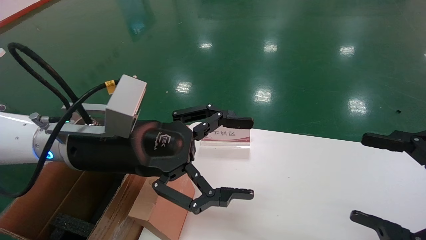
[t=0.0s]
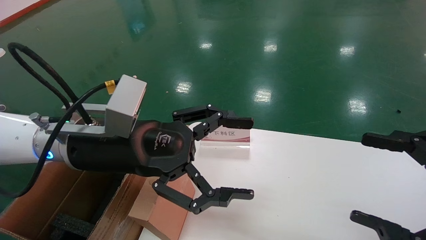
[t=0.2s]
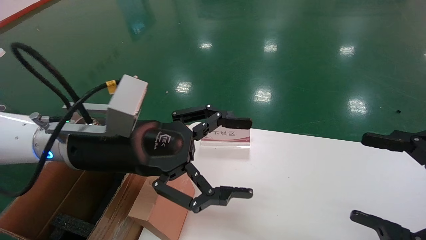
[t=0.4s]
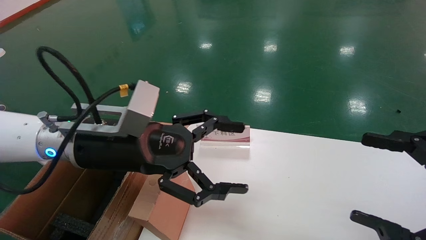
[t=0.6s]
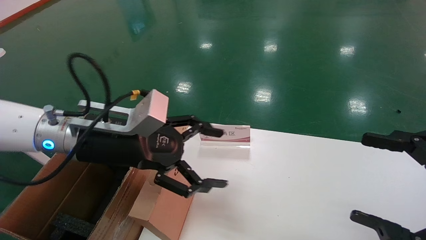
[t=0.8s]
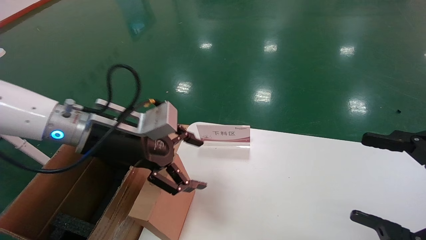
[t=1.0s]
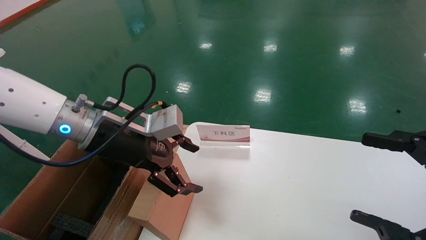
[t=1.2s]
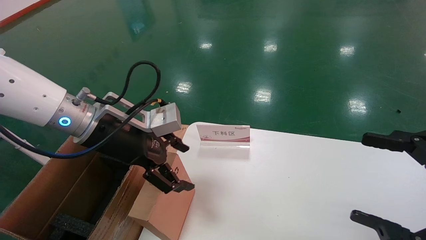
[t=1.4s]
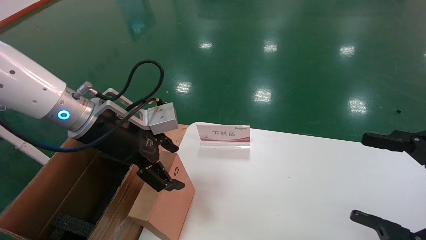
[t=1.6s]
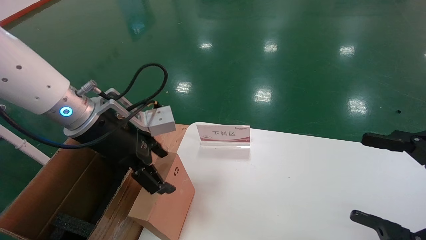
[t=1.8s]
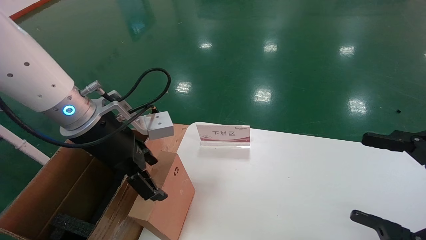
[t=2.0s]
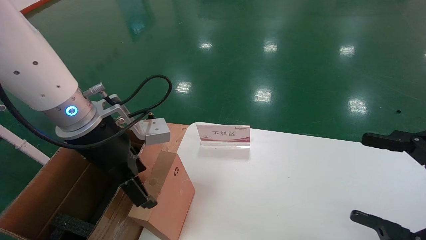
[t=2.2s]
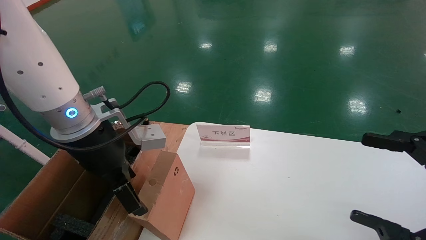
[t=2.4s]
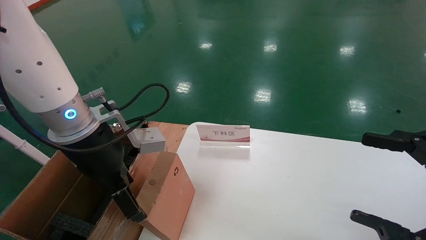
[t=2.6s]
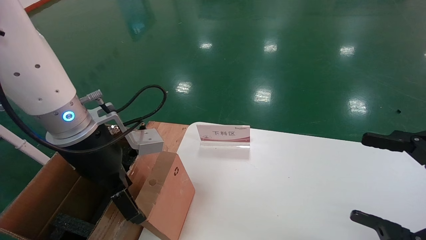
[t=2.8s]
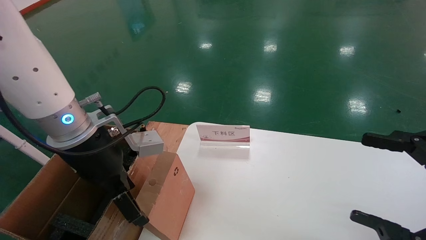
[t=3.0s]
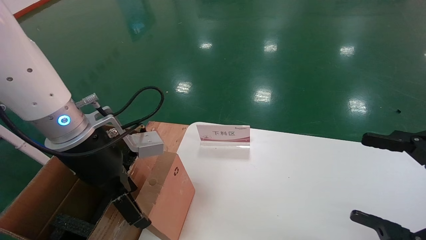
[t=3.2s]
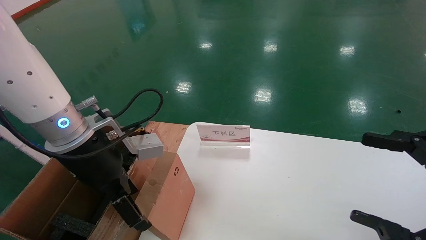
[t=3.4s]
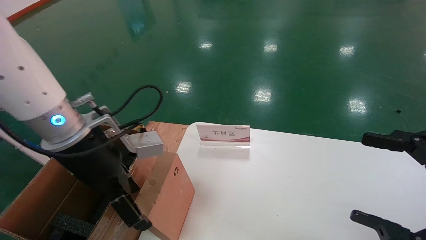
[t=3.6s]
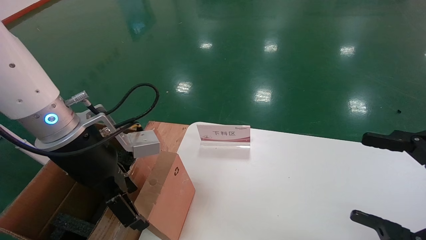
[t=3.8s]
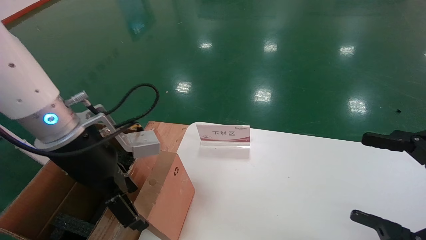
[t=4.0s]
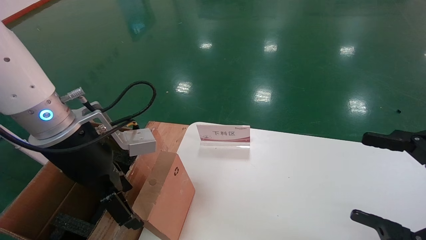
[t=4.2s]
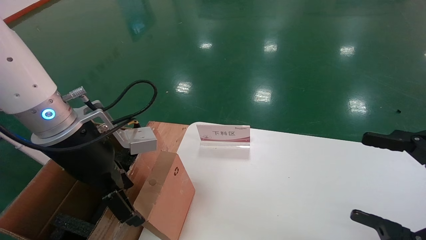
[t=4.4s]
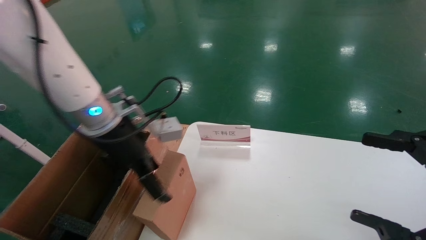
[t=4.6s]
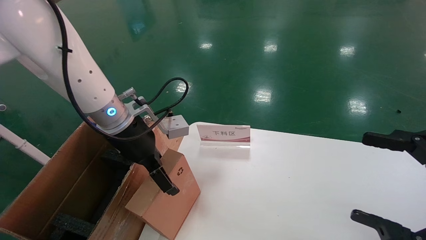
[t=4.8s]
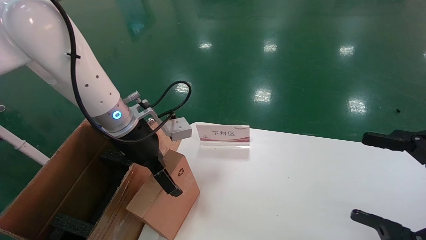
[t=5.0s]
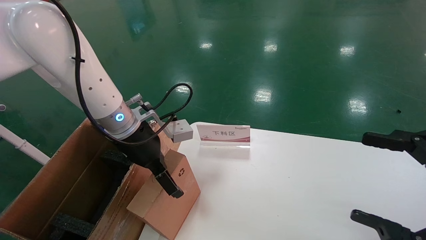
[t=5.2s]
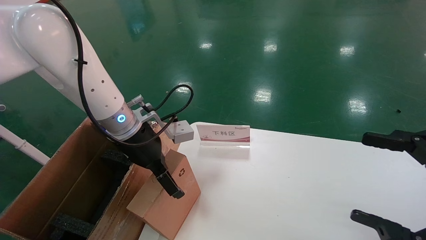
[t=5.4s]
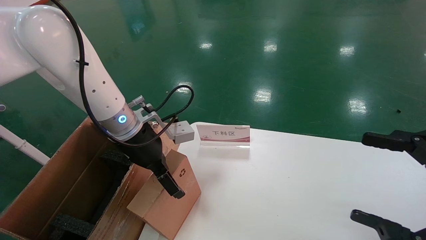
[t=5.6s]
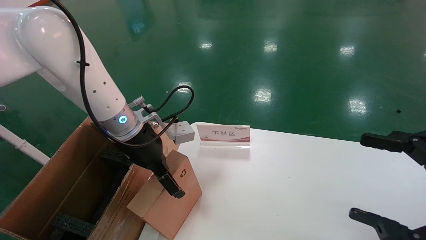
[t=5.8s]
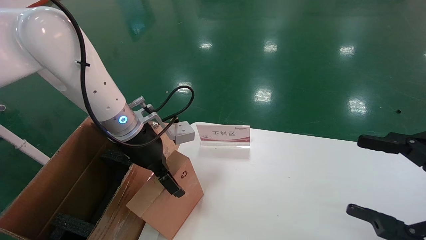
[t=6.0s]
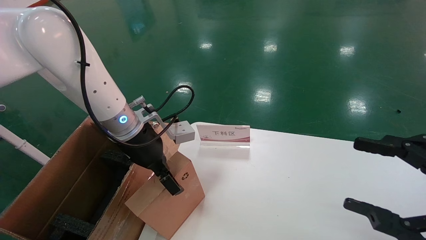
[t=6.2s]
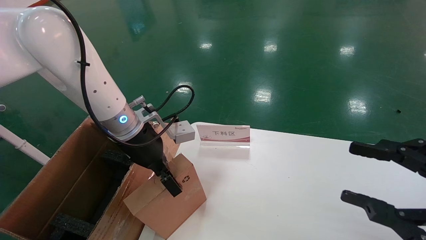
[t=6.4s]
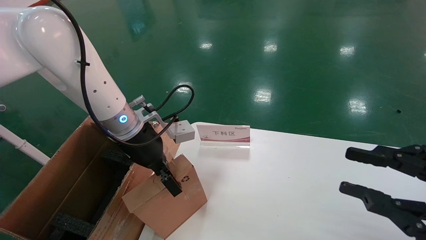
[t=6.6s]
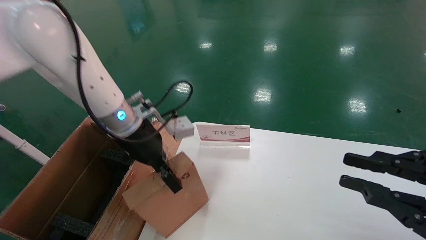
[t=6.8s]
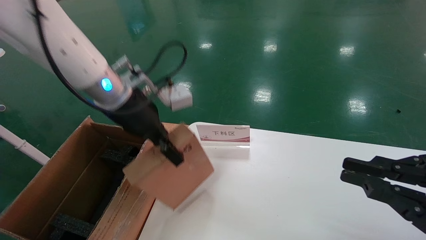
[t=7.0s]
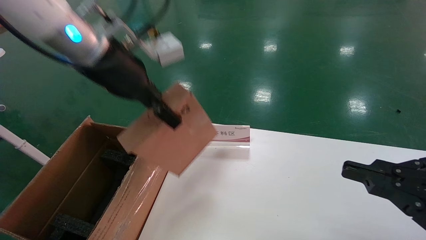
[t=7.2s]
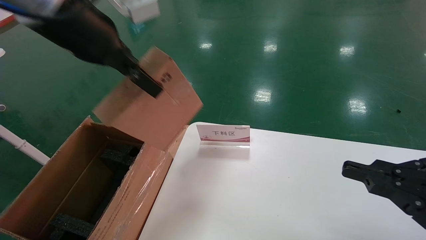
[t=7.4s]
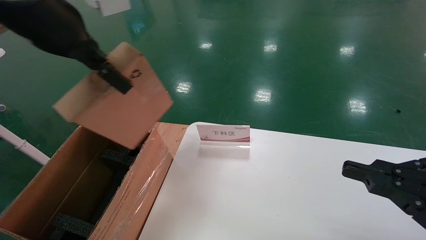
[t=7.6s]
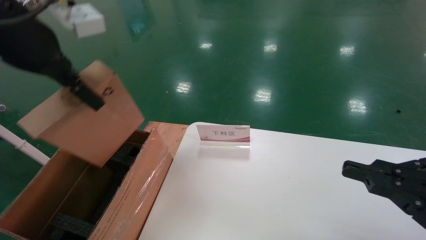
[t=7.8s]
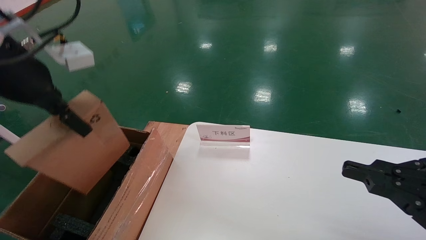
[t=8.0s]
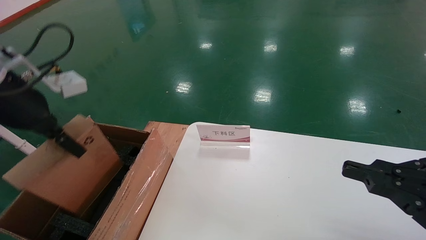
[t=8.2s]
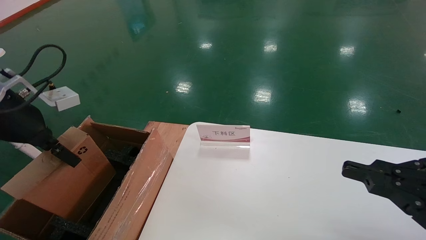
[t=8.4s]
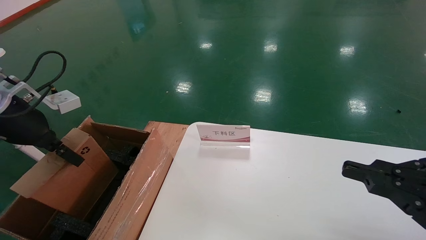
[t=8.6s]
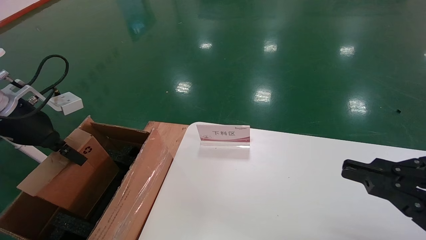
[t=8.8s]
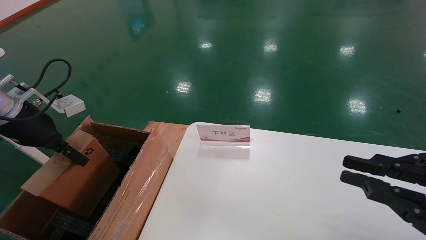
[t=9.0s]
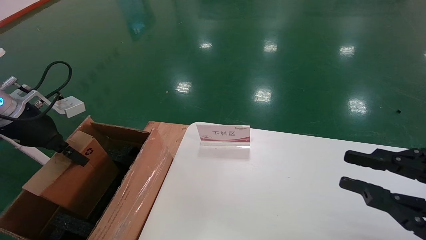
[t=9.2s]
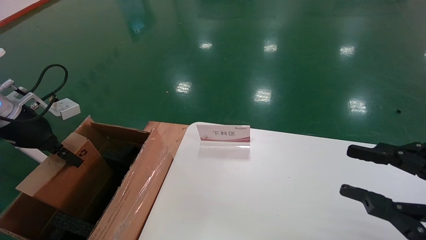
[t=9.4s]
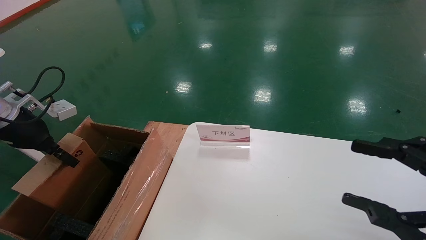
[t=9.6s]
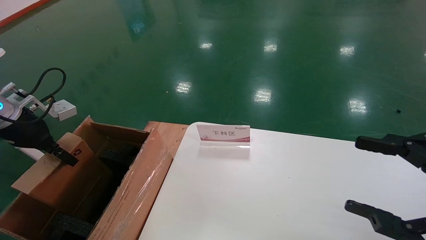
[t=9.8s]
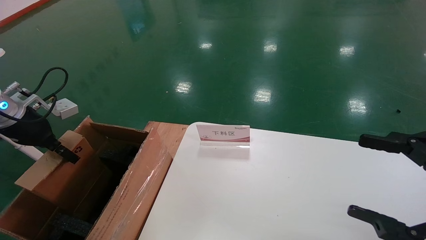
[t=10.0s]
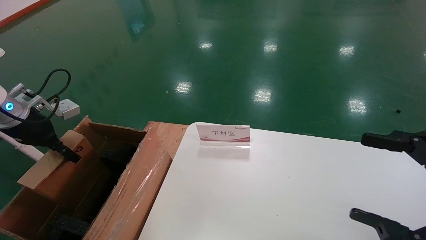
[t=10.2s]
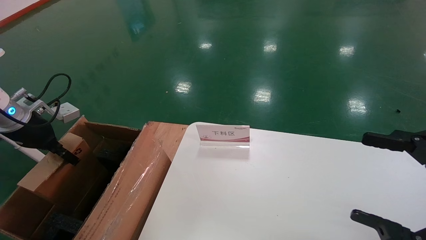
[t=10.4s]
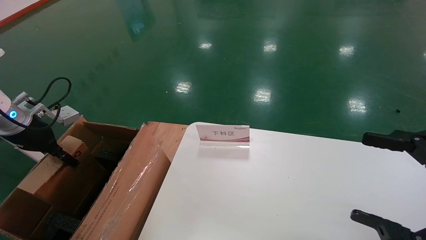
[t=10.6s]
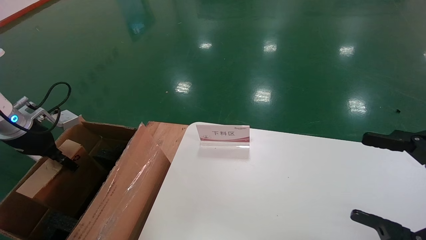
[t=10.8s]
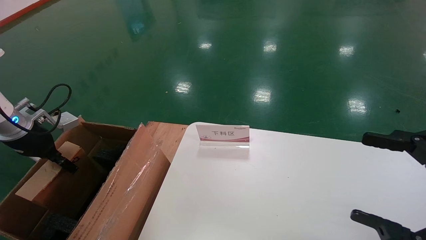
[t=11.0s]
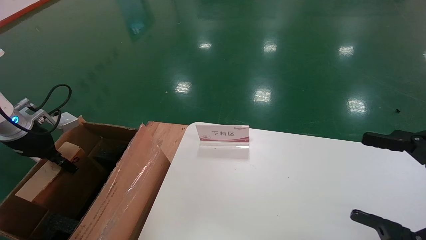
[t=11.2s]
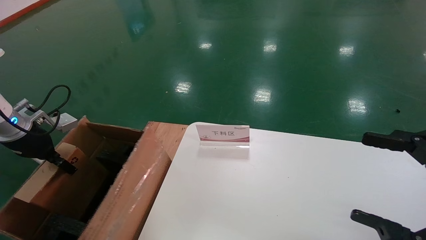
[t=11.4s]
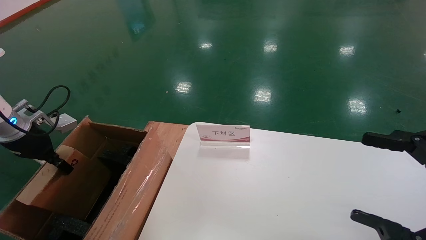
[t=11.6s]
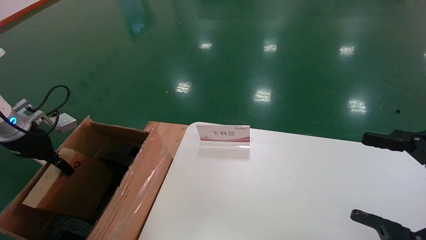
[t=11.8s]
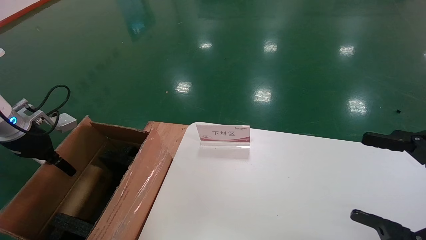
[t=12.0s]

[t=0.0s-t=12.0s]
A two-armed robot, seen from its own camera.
Task of the whole recording: pick up the small cardboard box and load it into the large cardboard box.
Step, t=0.8s to t=7.0s: Pick up the mouse and power cord box.
t=0.0s to t=1.6s: The left gripper shifts by approximately 5 cm.
t=3.0s to t=4.4s: There are only small adjustments of the grippers.
t=4.4s to t=6.0s: The left gripper heads forward, covering some 5 cm.
t=6.0s to t=7.6s: The left gripper travels upward and backward by approximately 25 cm, and closes up; the right gripper closes up.
t=7.6s to t=9.0s: The left gripper shifts approximately 25 cm to the left and downward.
t=9.0s to t=10.4s: The left gripper goes approximately 5 cm to the left; the right gripper opens its fingers.
t=10.4s to t=12.0s: The left gripper opens.

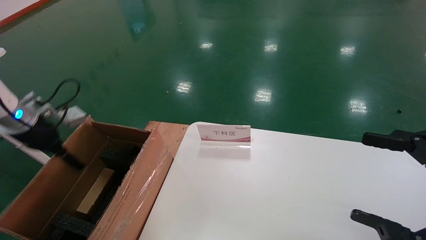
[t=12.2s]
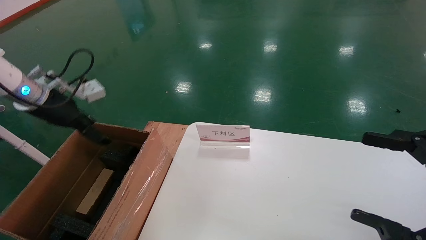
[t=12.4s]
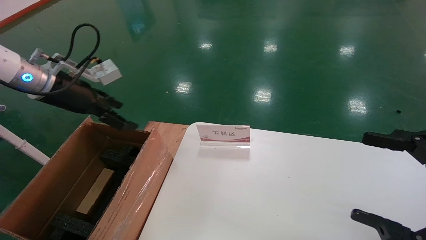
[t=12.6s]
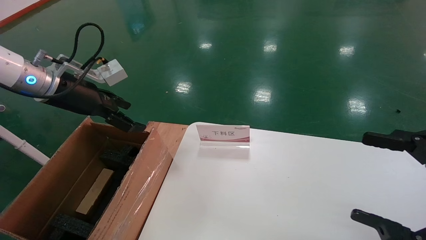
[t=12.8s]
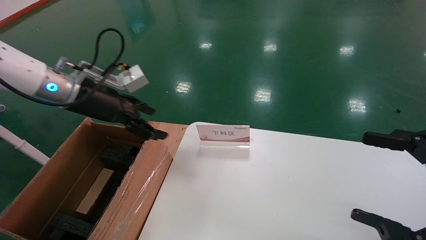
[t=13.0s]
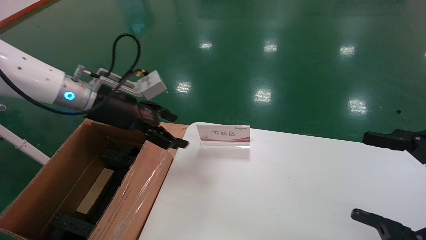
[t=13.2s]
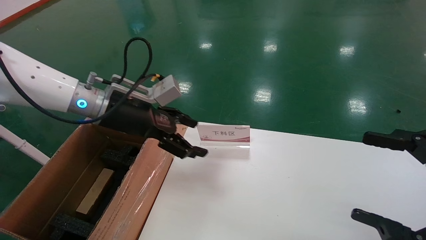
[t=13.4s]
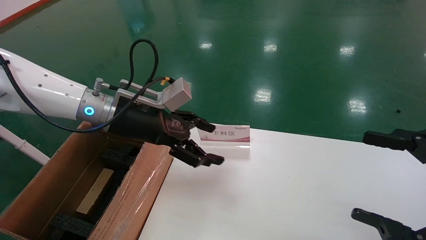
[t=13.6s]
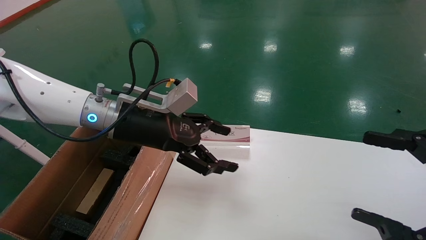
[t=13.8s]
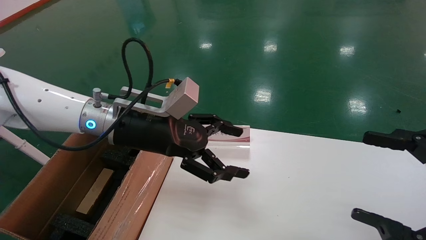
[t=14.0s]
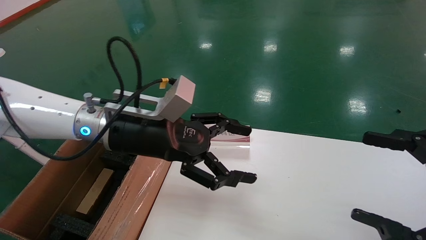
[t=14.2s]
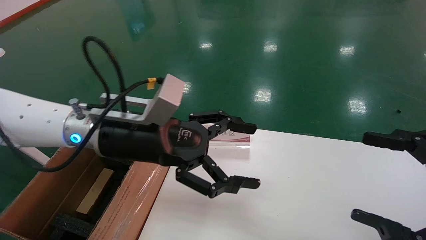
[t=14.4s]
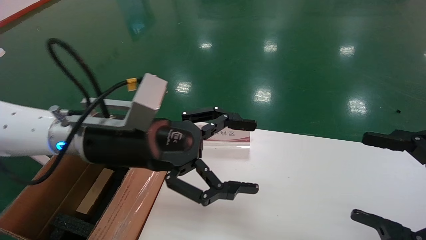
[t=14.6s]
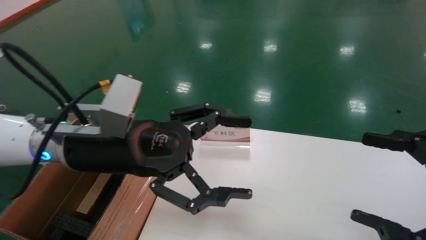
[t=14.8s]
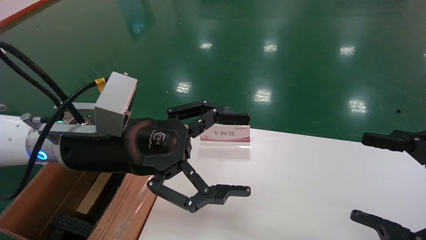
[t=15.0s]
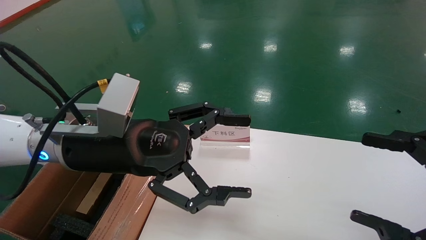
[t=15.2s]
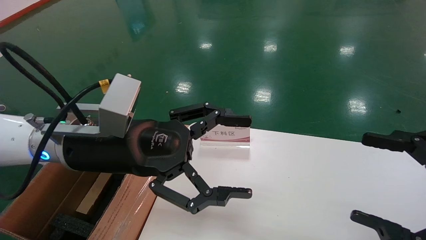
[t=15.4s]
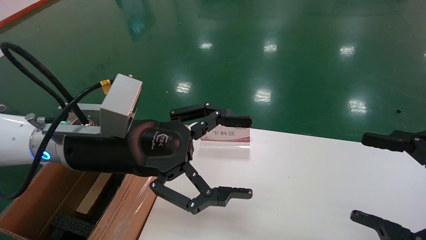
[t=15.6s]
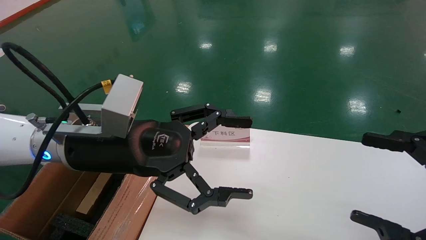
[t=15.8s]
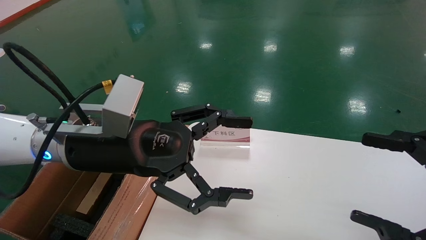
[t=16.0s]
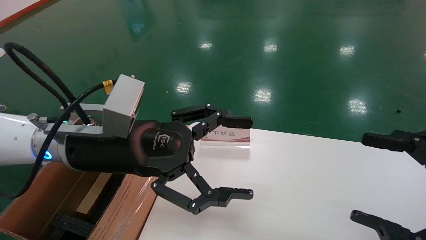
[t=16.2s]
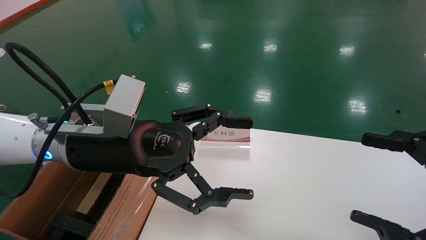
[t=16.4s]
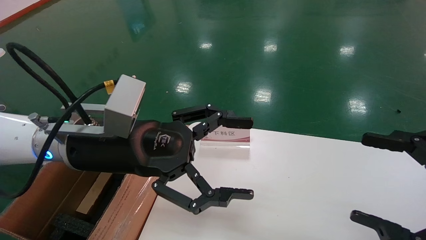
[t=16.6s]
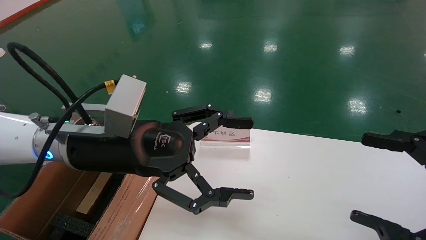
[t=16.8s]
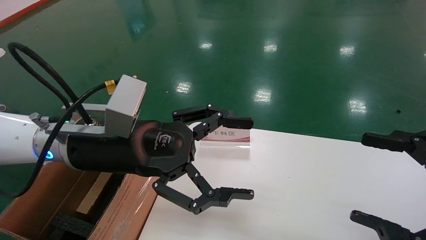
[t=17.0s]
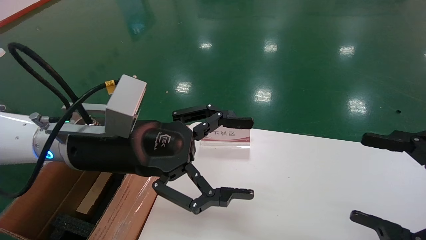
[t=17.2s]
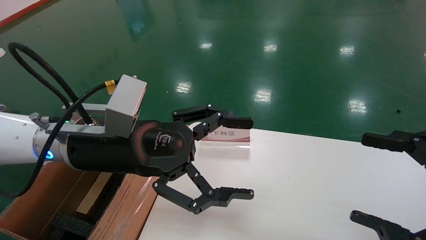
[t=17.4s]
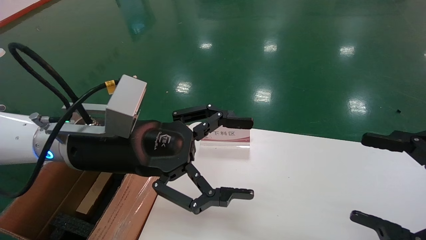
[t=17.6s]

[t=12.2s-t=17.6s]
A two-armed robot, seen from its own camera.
Task of the whole recording: pick up the small cardboard box and load it into the large cardboard box.
t=12.2s to t=13.6s: The left gripper heads to the right, covering roughly 25 cm, and opens its fingers.
t=13.6s to t=15.0s: The left gripper goes some 10 cm backward.
t=15.0s to t=17.6s: Both grippers stay put.
